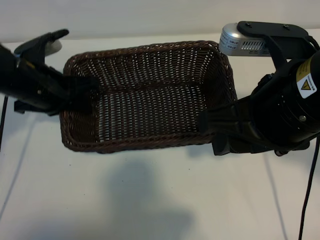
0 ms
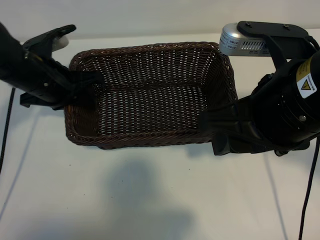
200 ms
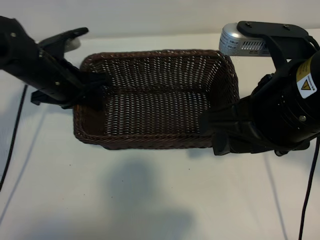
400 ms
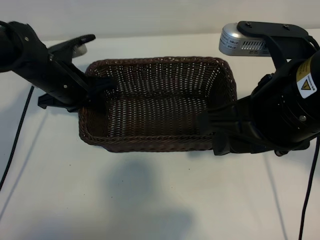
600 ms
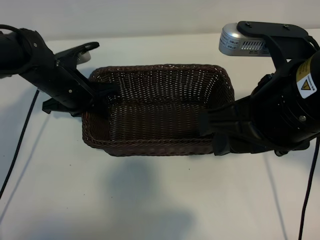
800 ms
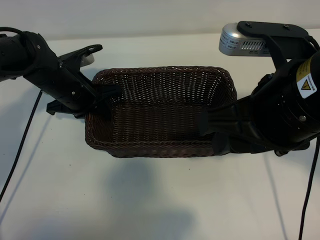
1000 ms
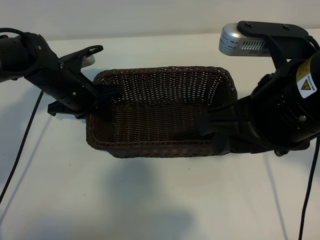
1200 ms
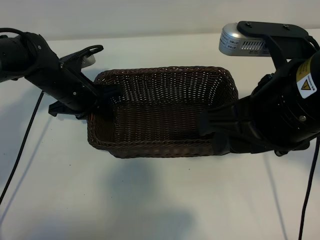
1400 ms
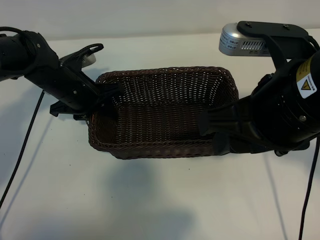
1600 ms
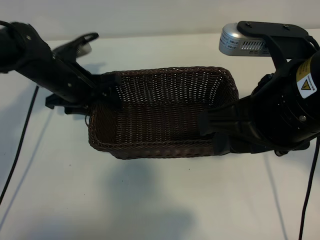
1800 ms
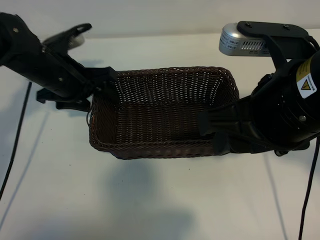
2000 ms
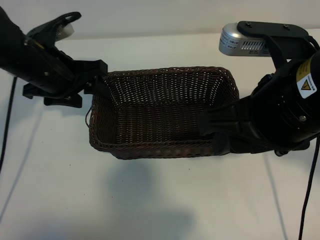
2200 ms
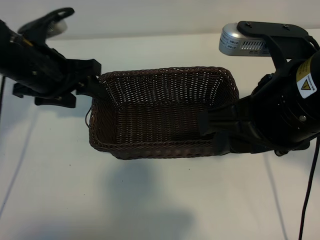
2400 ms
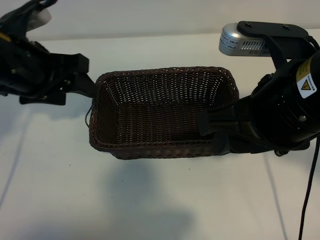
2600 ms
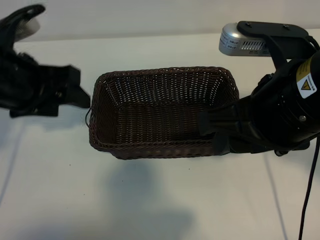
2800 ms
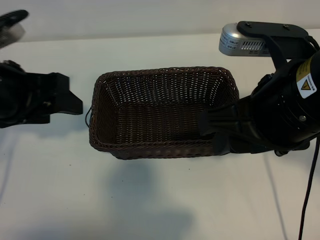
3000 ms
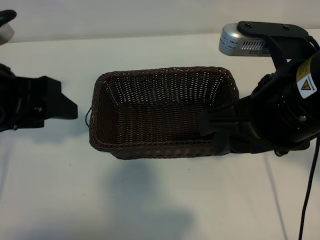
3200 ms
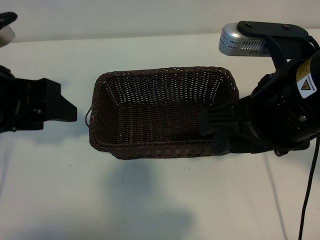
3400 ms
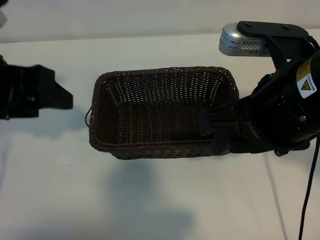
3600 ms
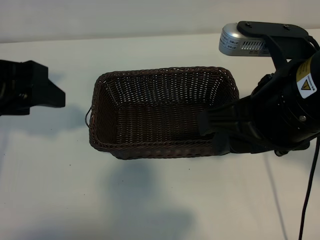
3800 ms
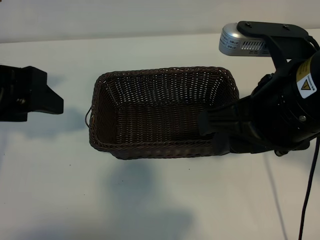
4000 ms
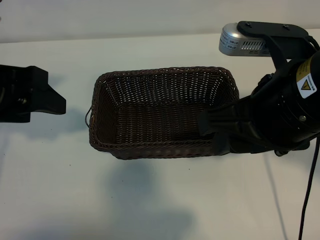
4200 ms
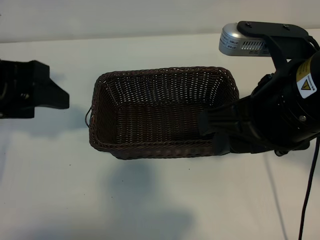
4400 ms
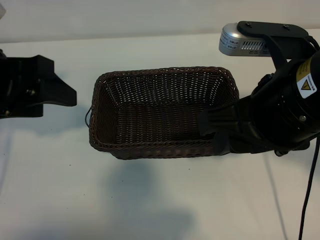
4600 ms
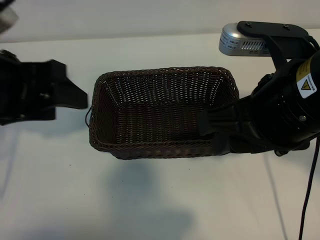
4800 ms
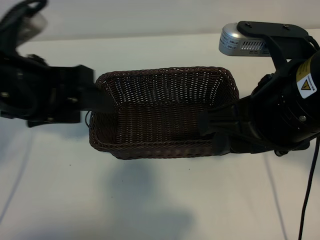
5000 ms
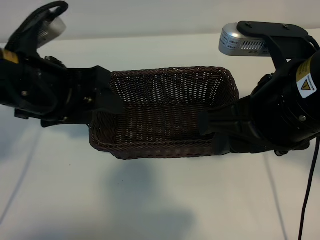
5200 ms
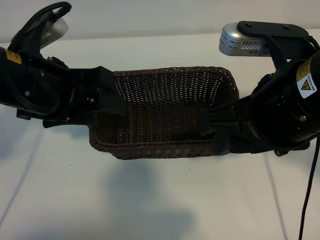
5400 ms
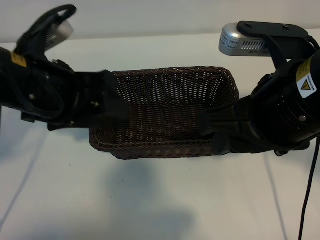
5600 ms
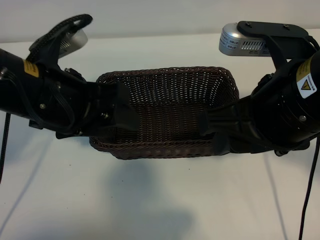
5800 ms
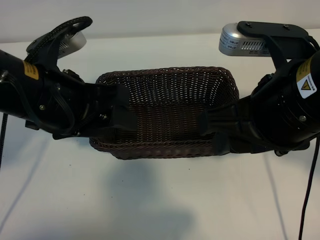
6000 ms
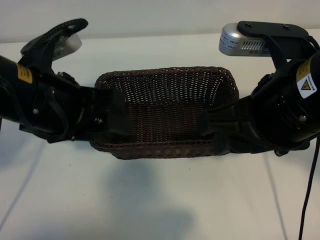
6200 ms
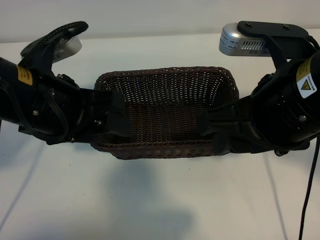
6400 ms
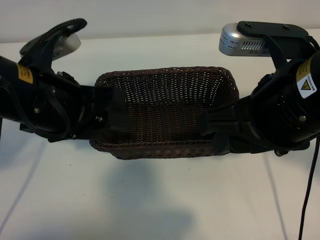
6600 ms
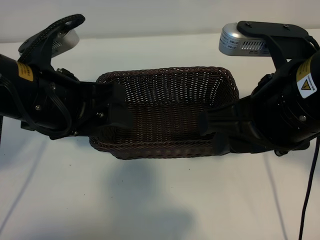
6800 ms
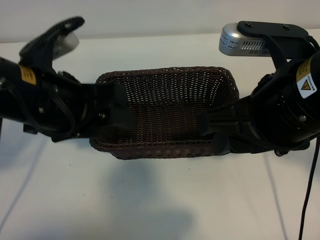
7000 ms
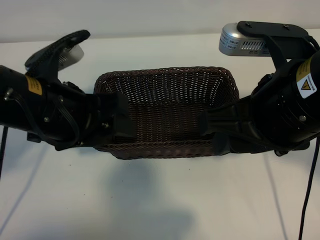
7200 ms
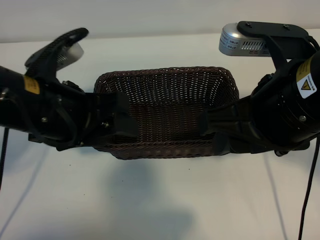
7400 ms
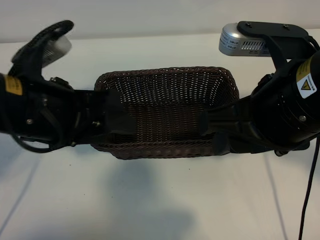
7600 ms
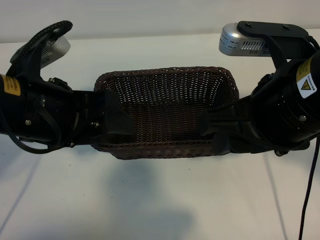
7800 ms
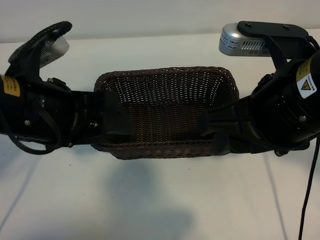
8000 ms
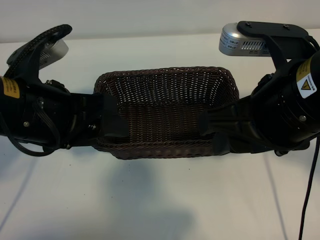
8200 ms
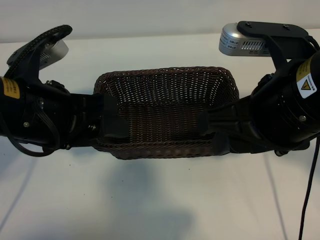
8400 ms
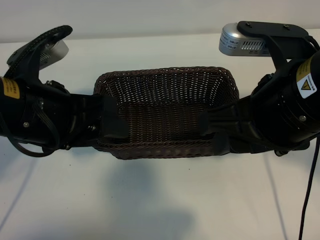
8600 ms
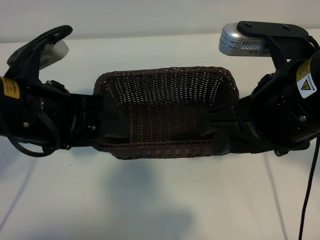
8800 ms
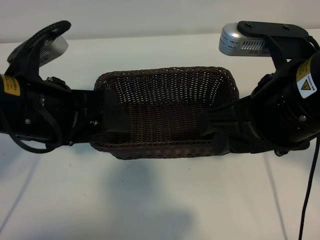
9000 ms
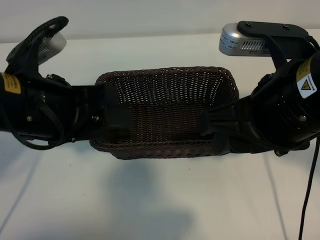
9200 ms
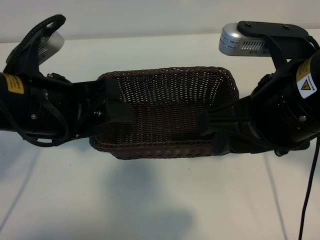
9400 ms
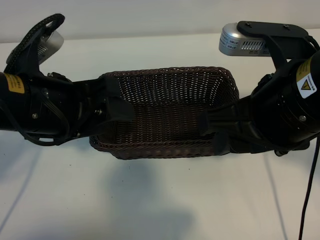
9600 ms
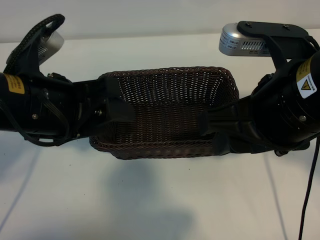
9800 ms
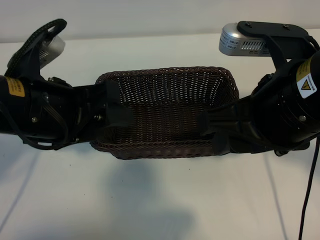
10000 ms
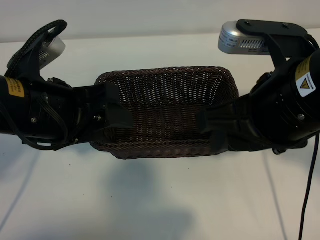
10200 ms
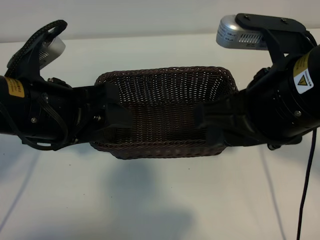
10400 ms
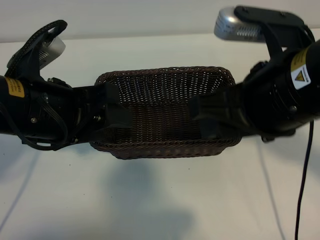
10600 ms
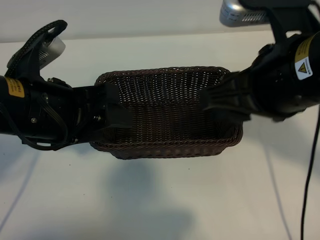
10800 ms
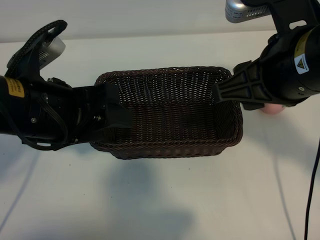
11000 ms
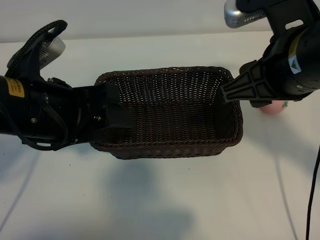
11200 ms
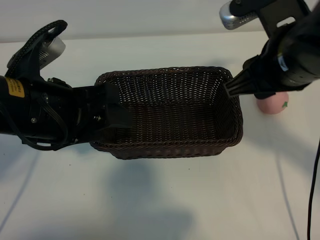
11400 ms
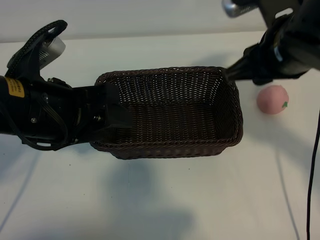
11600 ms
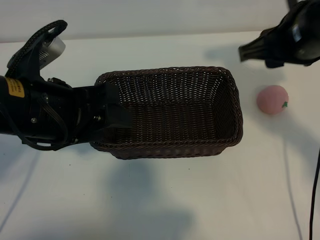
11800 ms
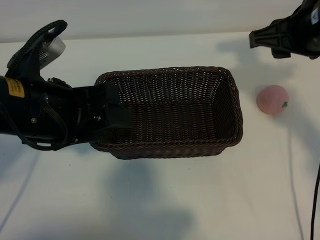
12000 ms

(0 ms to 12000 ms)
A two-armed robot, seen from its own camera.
Task of the whole recording: pick up the peach and put it into the basket.
Step, 0 ms - 2000 ms: Place the basket in the center of view with left gripper.

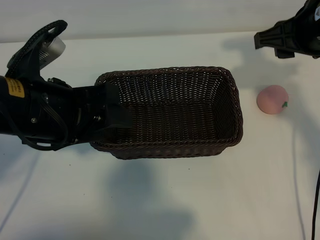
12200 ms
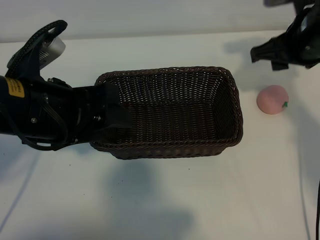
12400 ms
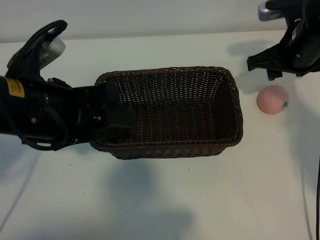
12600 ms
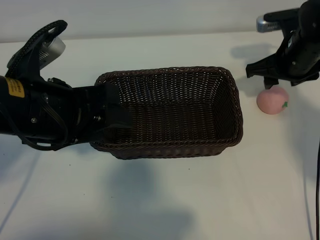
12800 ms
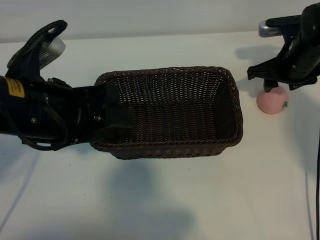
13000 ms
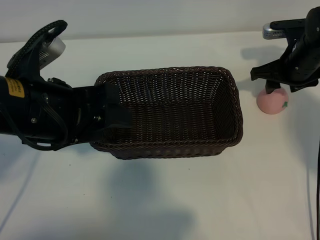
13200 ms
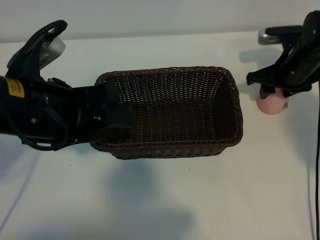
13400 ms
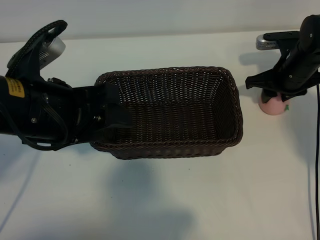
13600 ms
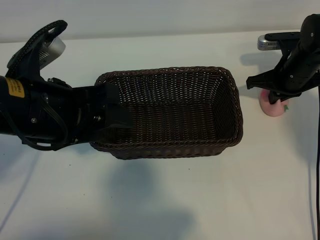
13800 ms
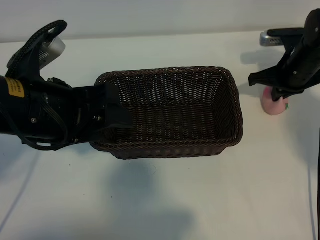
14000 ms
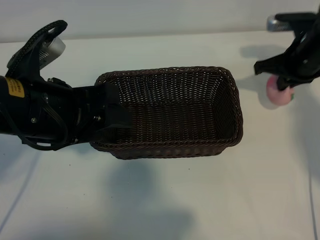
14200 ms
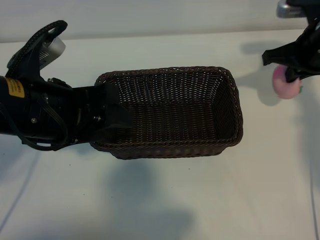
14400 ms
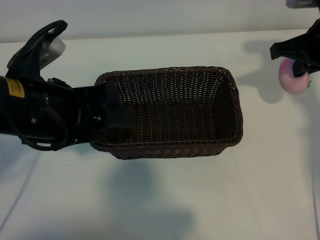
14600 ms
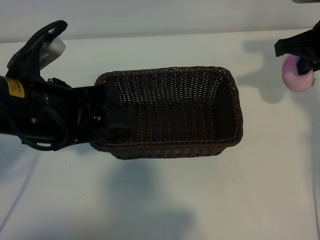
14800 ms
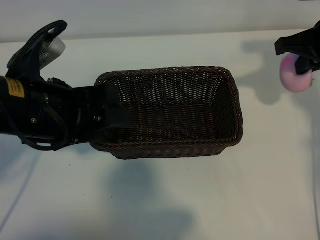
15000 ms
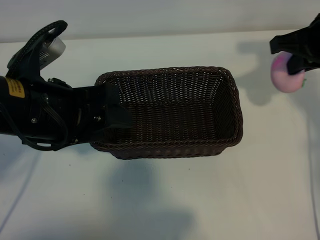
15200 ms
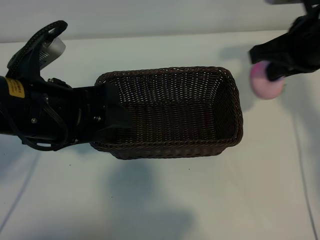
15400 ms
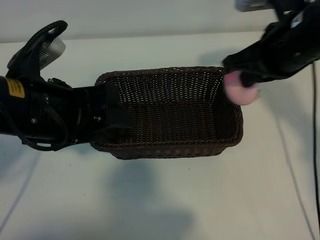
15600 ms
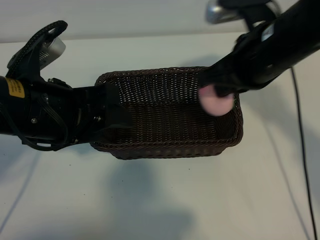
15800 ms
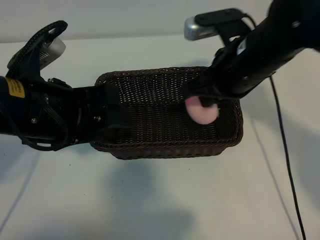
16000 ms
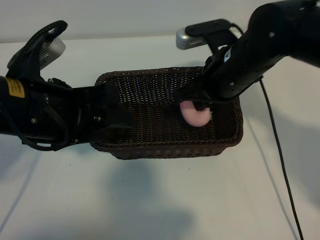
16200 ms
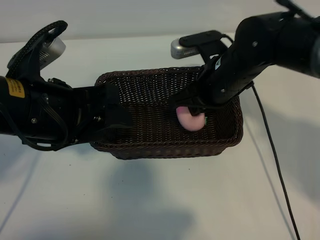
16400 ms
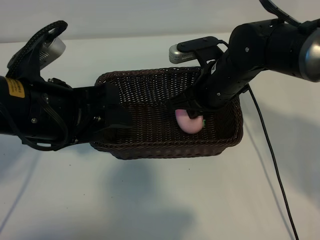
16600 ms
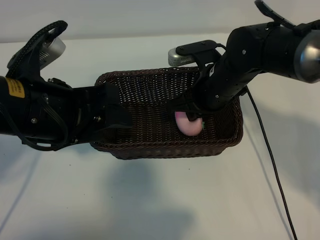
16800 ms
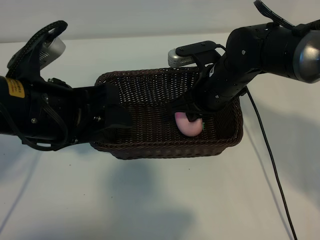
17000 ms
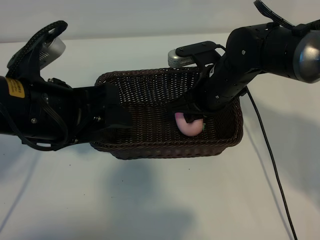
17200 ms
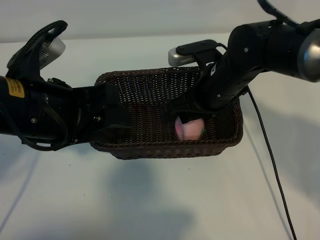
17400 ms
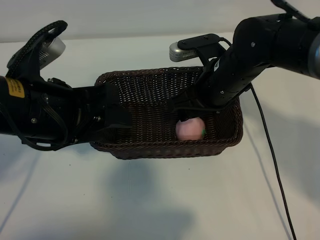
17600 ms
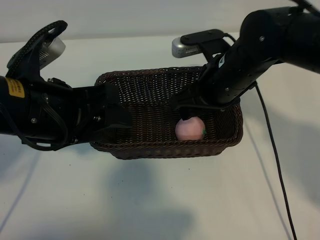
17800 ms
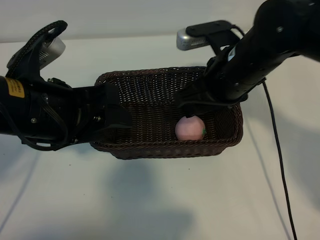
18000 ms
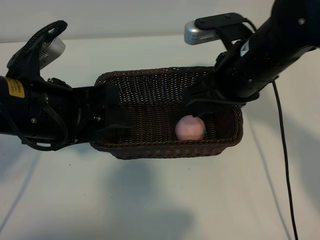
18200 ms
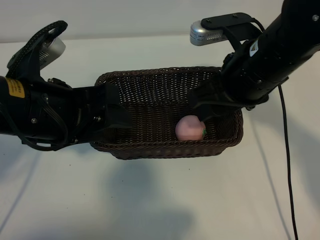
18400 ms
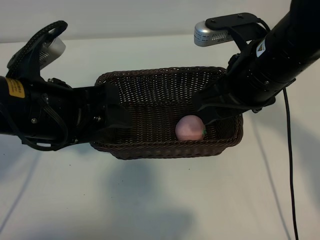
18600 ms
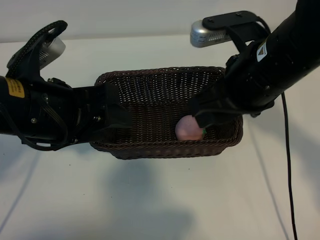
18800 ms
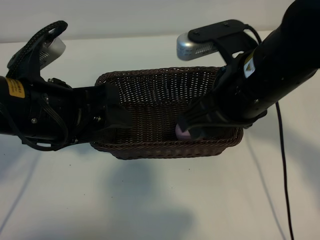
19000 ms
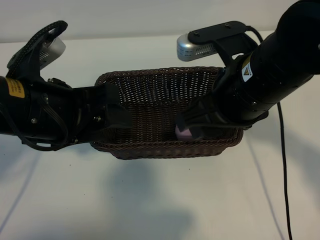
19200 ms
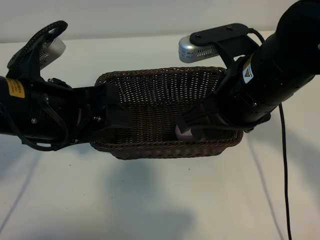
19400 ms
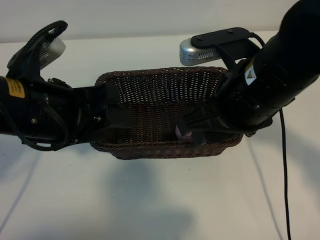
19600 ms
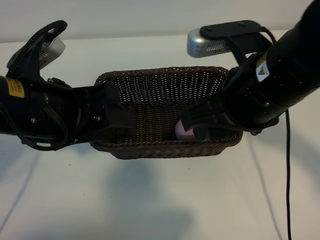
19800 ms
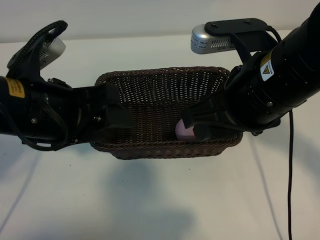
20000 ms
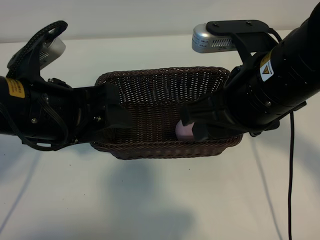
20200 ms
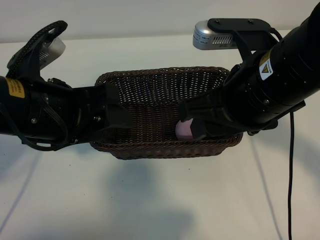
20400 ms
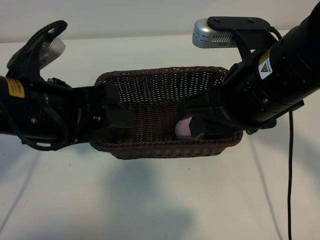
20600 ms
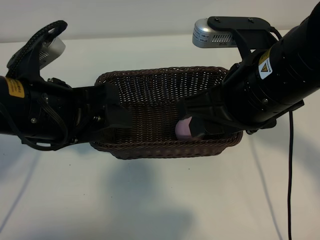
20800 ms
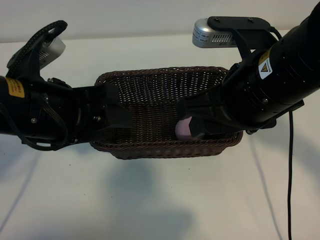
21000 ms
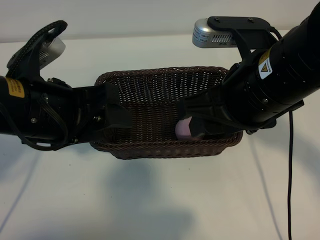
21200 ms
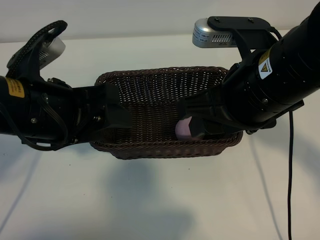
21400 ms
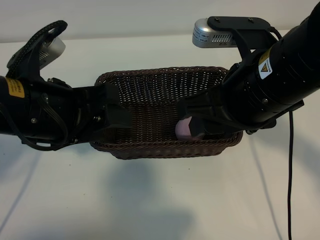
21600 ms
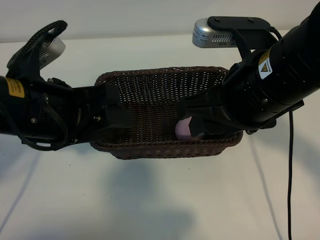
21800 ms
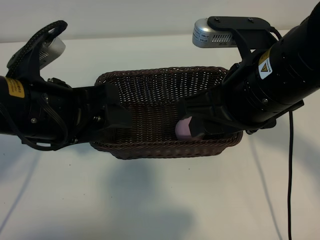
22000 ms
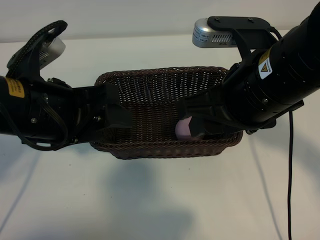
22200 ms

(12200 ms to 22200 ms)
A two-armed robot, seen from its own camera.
Task of the whole recording: pick up the peach and put it into the basket.
Step, 14000 ms - 17600 ms: Place the peach in the basket with right gripper.

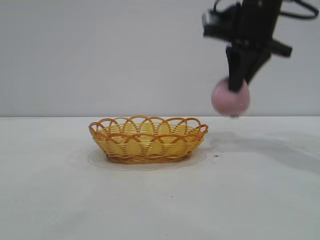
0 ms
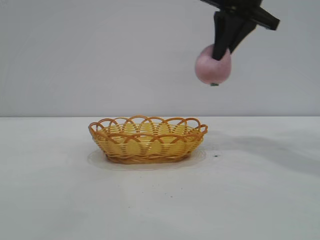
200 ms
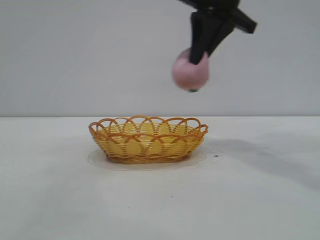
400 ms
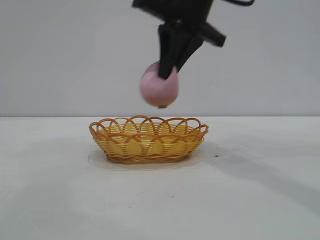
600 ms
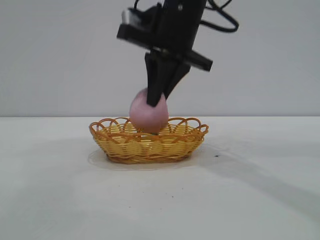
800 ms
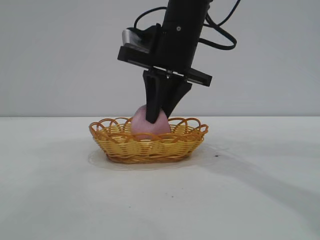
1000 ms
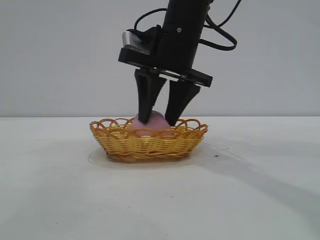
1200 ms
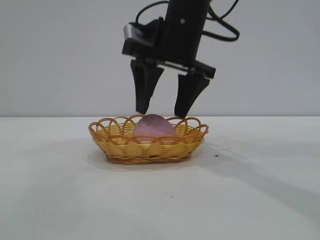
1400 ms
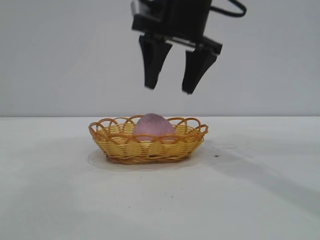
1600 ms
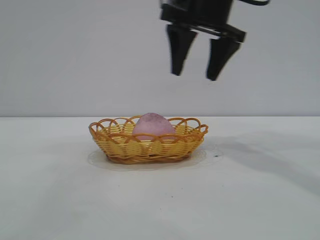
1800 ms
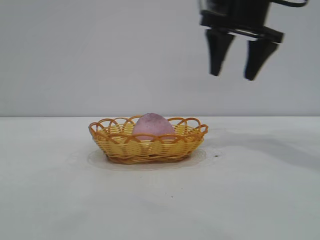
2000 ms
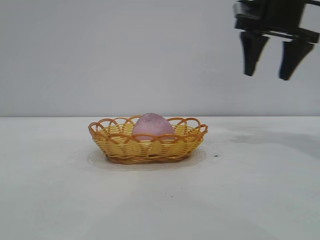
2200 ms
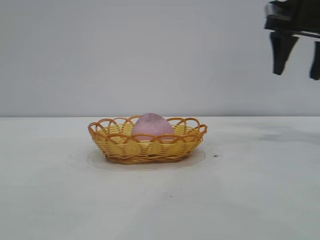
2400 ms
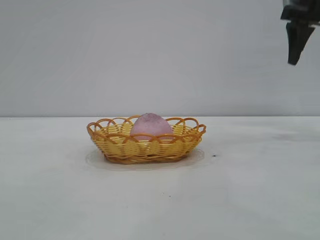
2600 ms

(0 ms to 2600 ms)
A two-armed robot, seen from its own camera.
Task of the whole recording: pick up the peach and put it into the basket.
Step, 200 ms - 1600 ms: place the peach into the basket.
